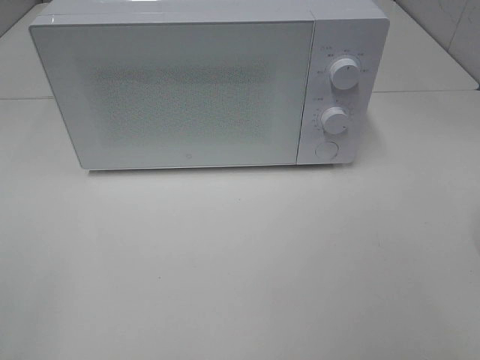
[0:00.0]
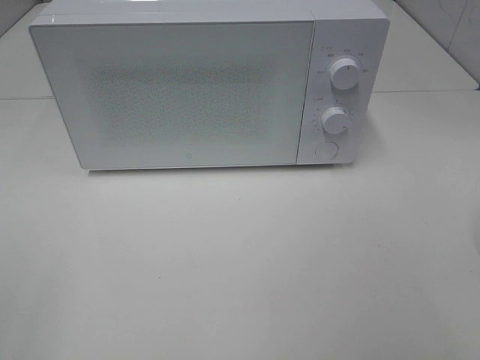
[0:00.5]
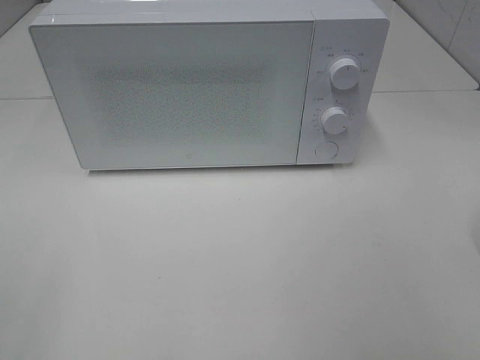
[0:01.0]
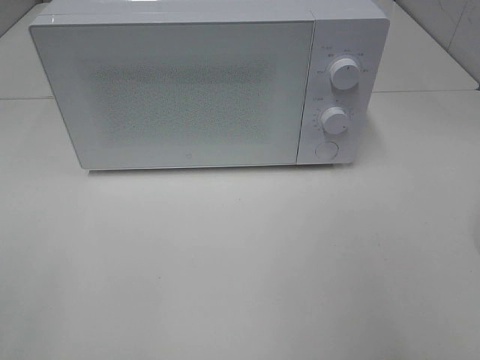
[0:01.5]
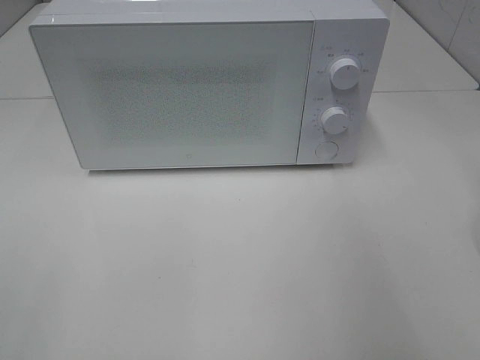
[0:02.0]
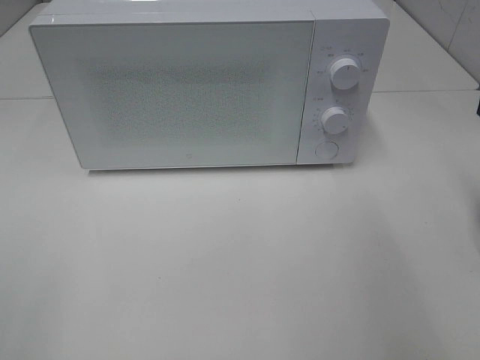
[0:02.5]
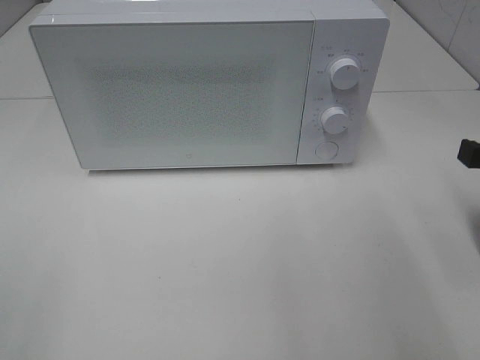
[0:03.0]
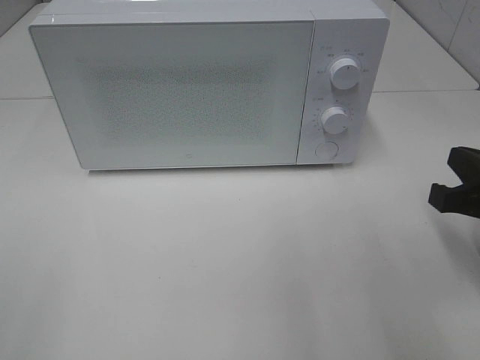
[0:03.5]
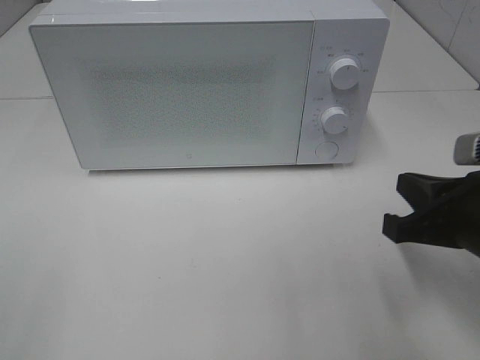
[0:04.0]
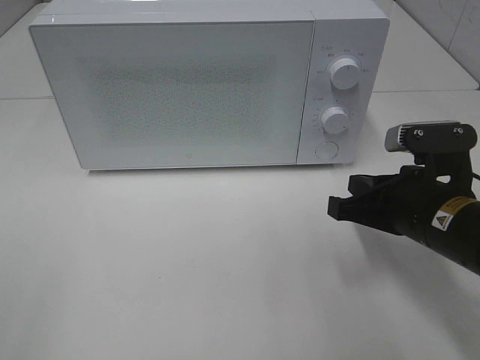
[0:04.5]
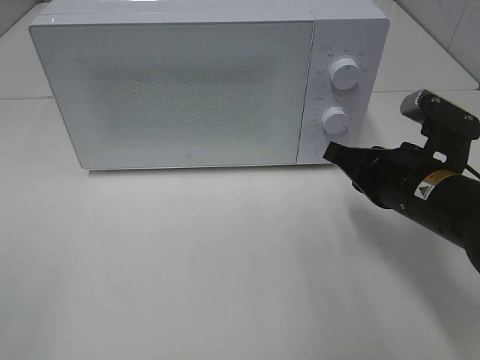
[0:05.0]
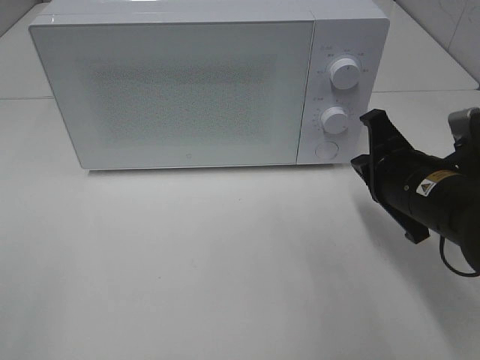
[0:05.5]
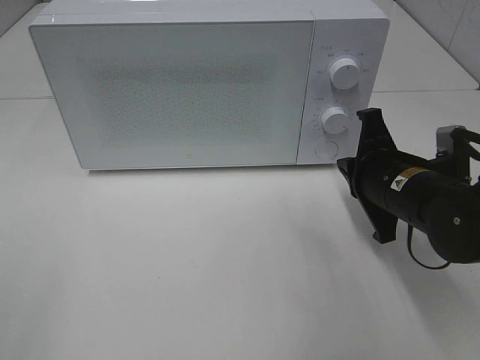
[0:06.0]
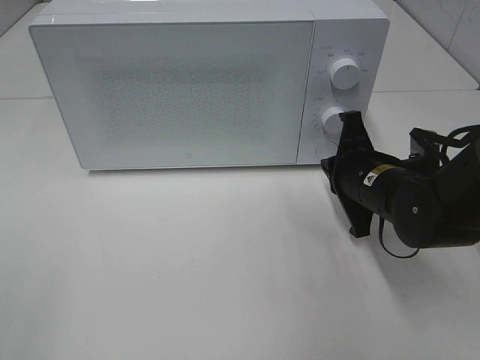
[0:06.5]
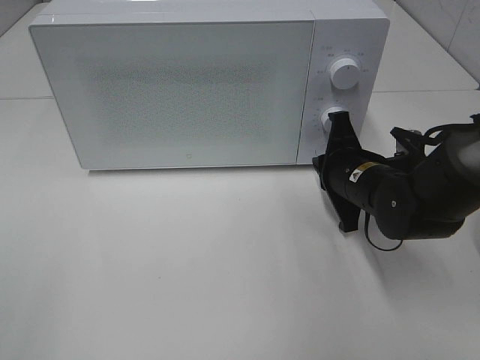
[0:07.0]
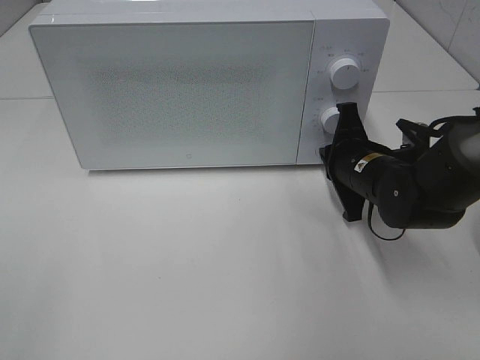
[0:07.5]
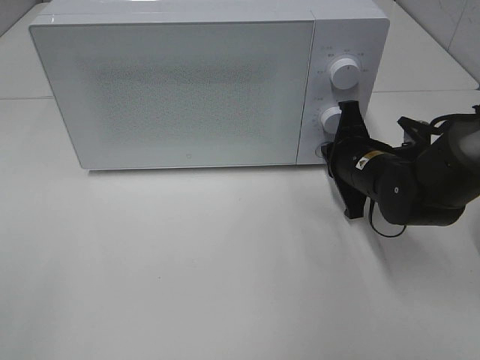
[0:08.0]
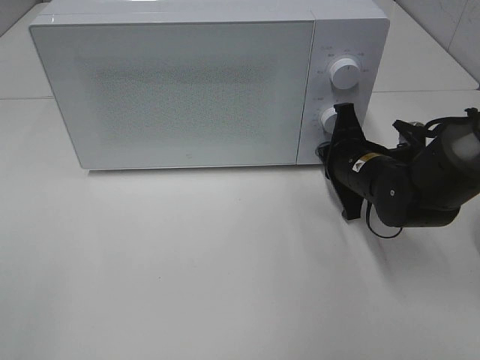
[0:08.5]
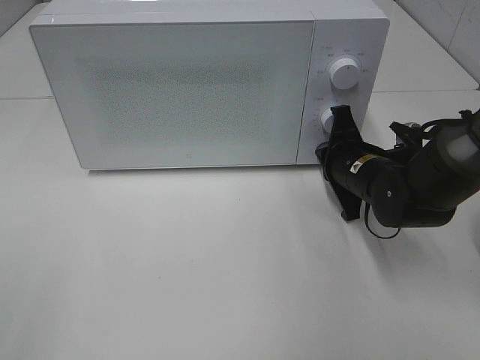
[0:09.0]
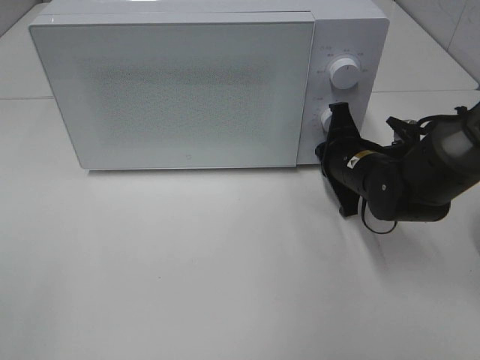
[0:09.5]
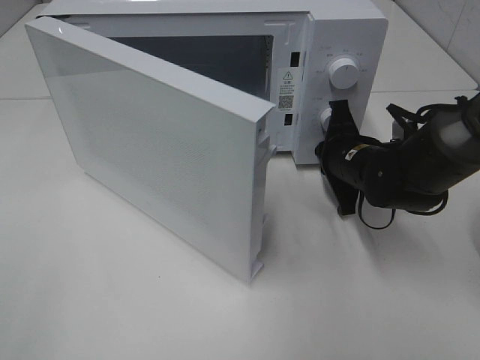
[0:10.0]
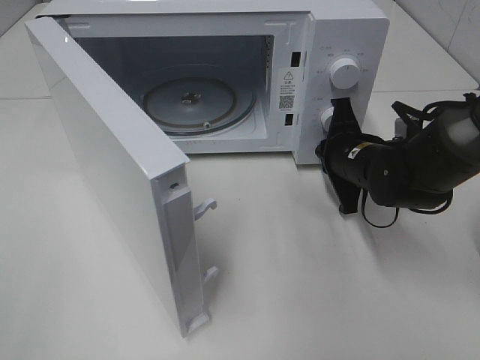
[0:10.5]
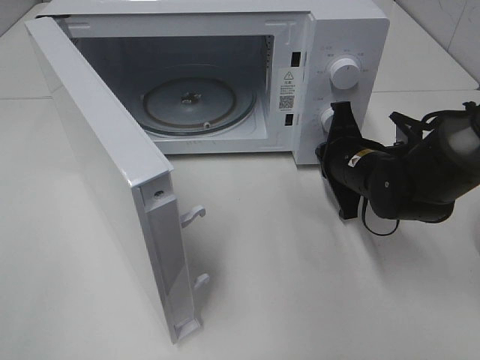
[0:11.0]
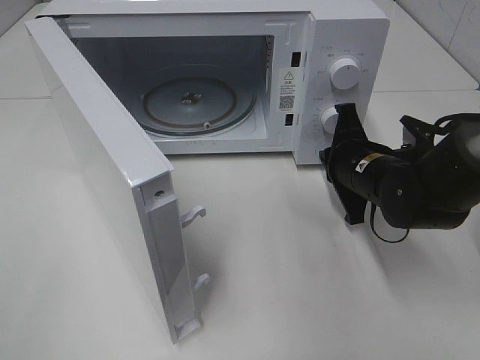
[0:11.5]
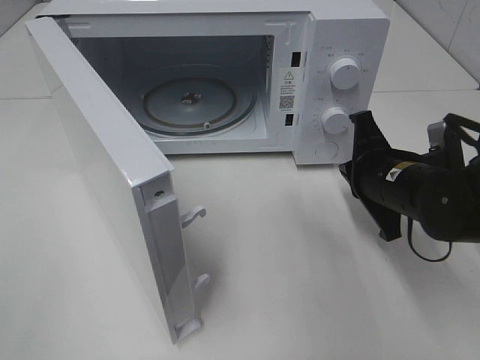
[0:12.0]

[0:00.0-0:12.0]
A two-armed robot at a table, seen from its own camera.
Task of the whole recording: Heat the burger.
Step, 0:00.0 to 0:11.0: Right hand: press the switch.
0:02.0 to 0:04.0: The right gripper goes some 15 cm downward and to the left.
0:04.0 to 0:06.0: The right gripper moves forward, about 10 cm.
0:06.0 to 0:08.0: The right gripper goes approximately 5 cm forward.
0:10.0 to 0:12.0: The right gripper shifts about 5 cm backward.

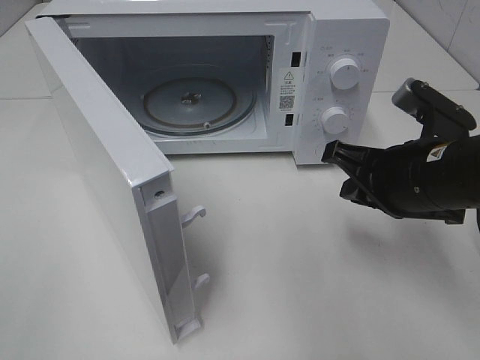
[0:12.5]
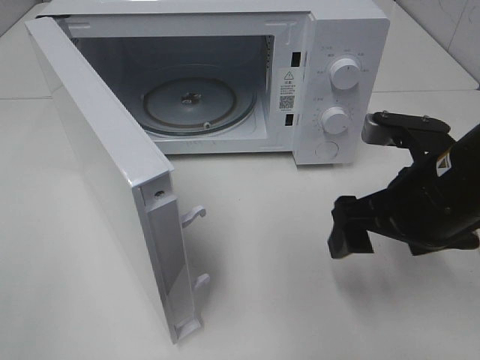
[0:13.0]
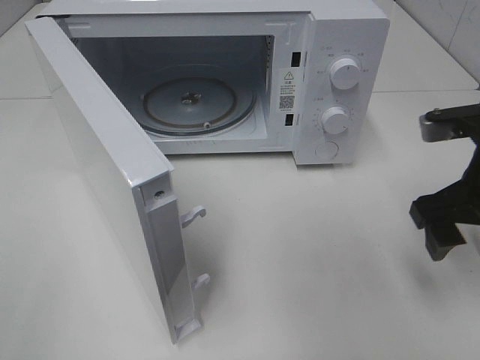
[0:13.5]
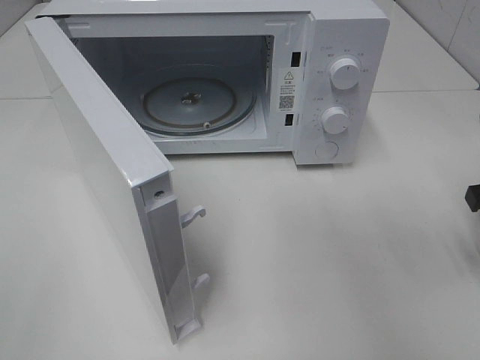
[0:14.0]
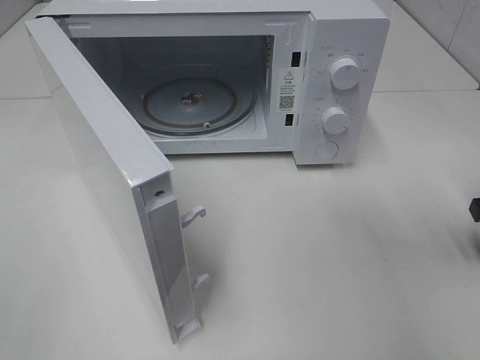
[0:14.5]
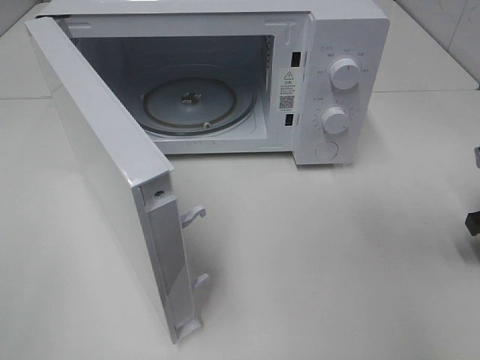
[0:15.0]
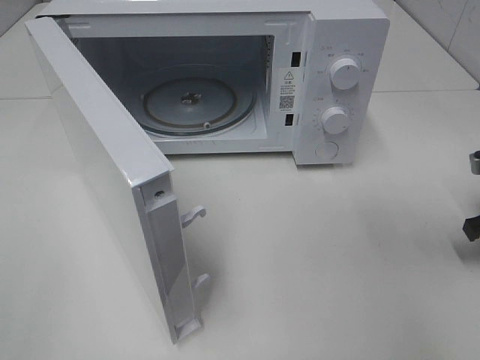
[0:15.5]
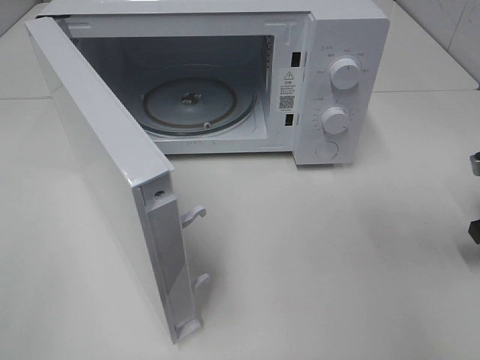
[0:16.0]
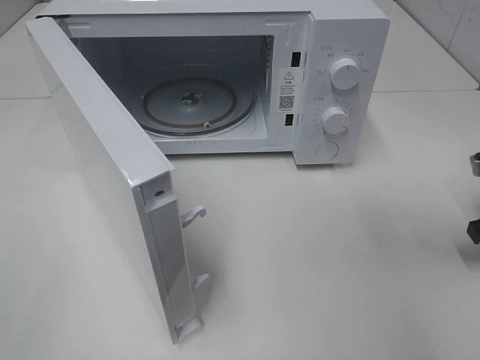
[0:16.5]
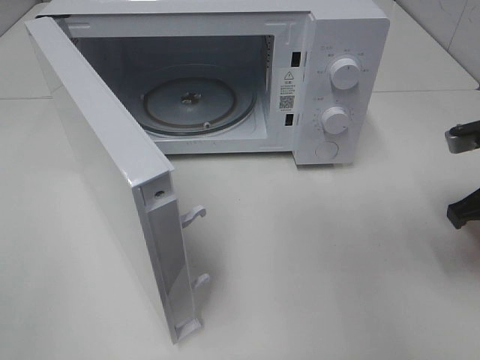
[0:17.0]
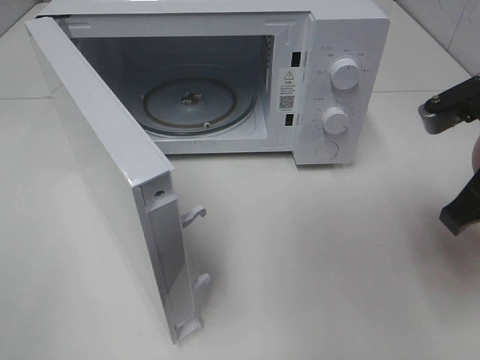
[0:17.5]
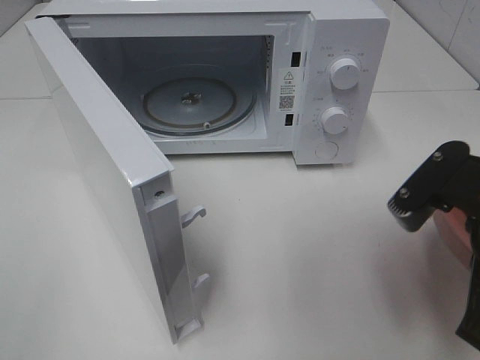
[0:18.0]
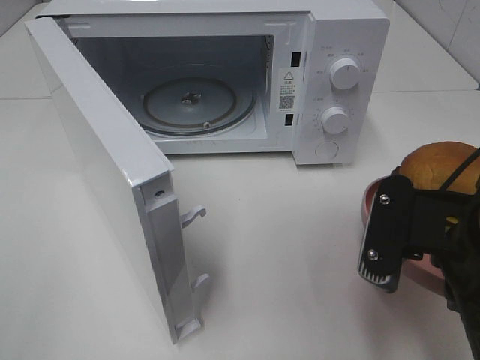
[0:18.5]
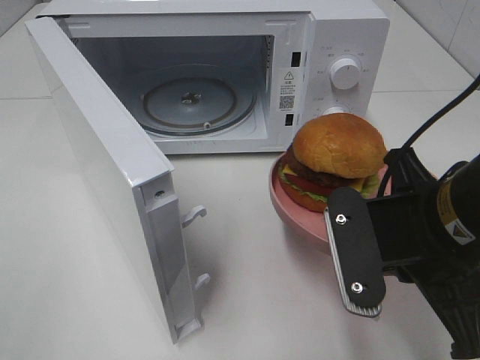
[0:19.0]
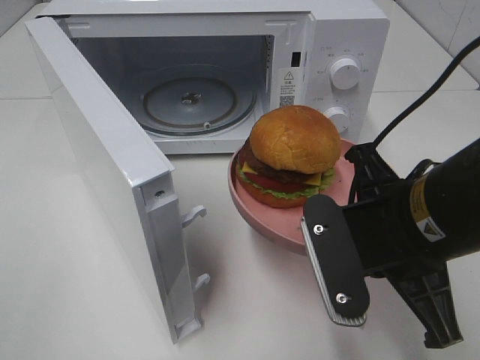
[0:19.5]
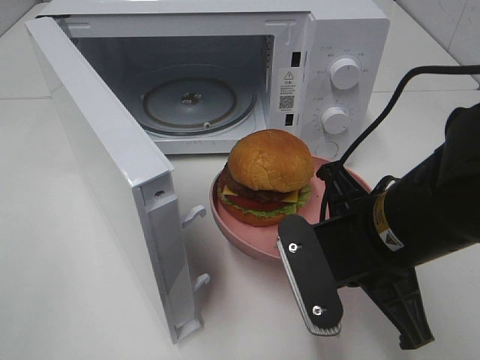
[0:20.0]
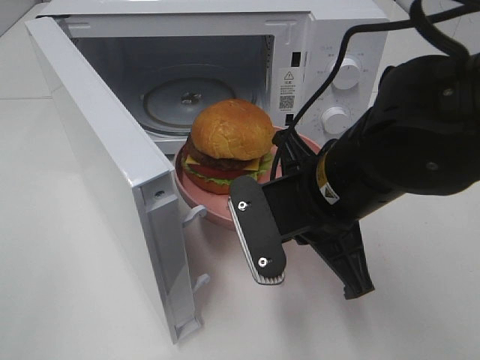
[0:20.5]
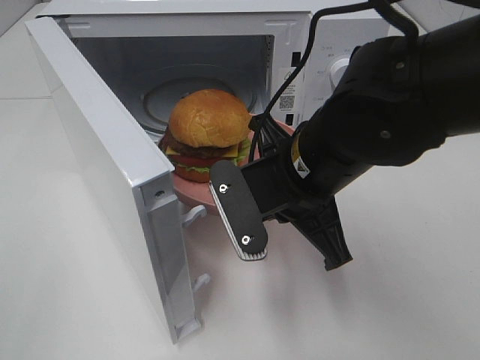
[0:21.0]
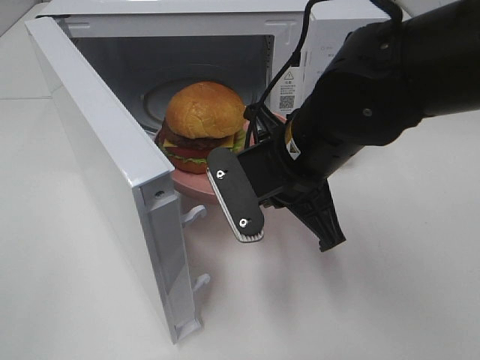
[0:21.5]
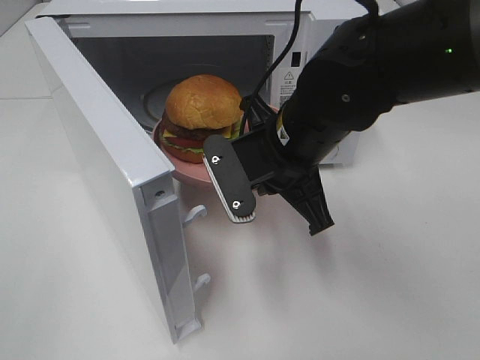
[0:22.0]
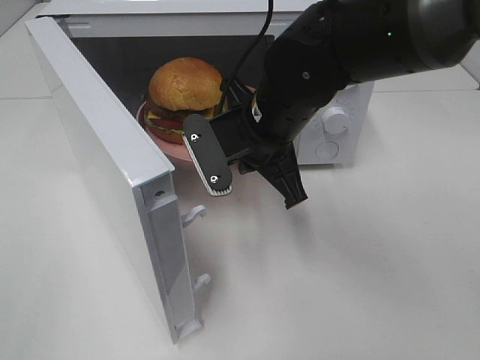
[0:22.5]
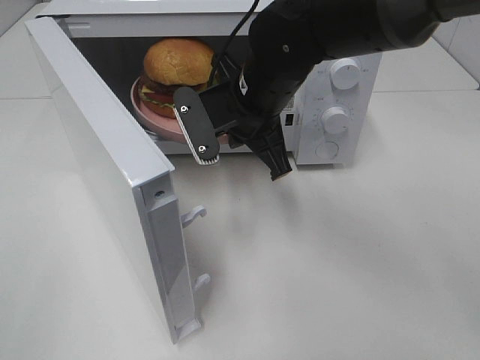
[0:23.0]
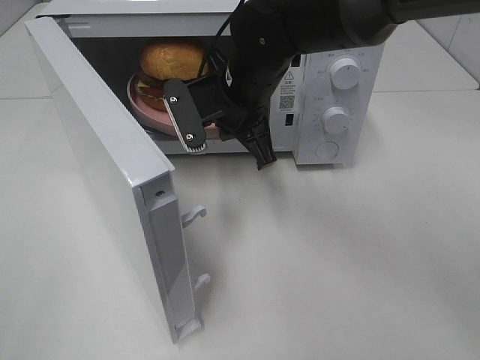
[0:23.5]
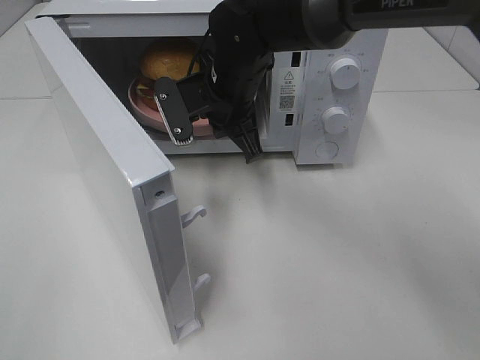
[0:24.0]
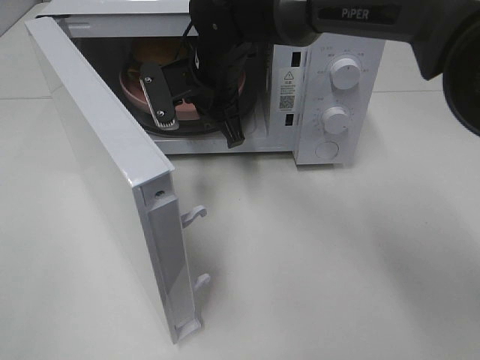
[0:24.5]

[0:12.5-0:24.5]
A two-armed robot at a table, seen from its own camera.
Task of the whole recording: Heat the burger.
Step, 0:12.5 to 0:16.5: Right hand: grab the plate with the hamburger.
0:12.5 to 0:14.5: The right gripper travels to the right by roughly 15 cm, and opens its fingers.
0:16.5 to 0:18.5: The right gripper heads to the left, backward and upward, covering about 25 cm.
0:18.5 to 0:20.5: The right gripper travels to the left and forward by roughly 10 cm.
0:20.5 to 0:22.5: The right gripper is displaced forward by roughly 10 cm.
0:22.5 to 0:24.5: The right gripper goes some 10 cm forward and to the left.

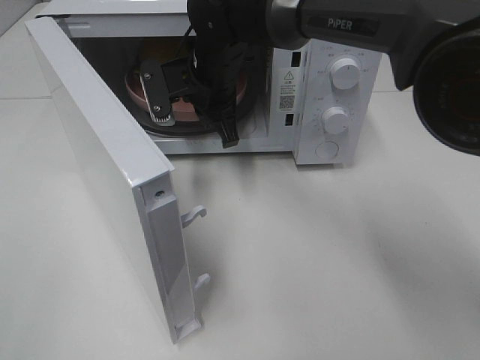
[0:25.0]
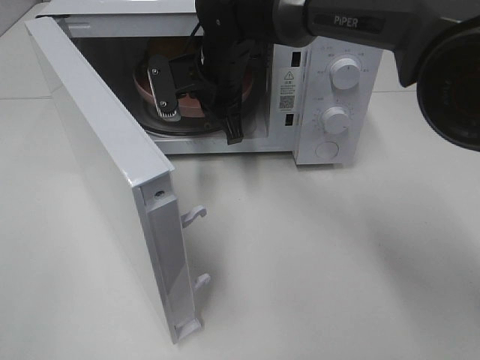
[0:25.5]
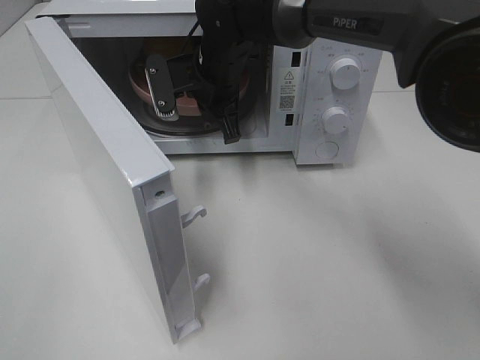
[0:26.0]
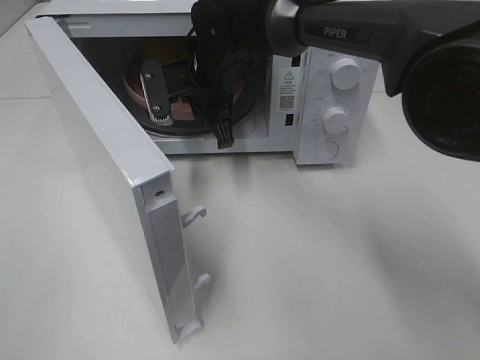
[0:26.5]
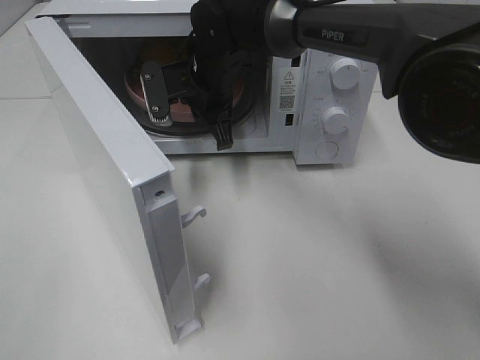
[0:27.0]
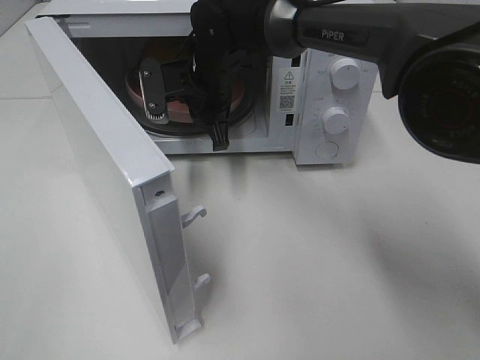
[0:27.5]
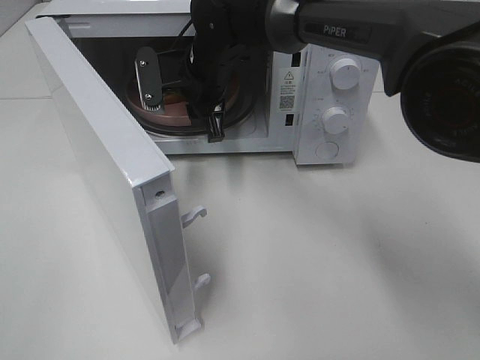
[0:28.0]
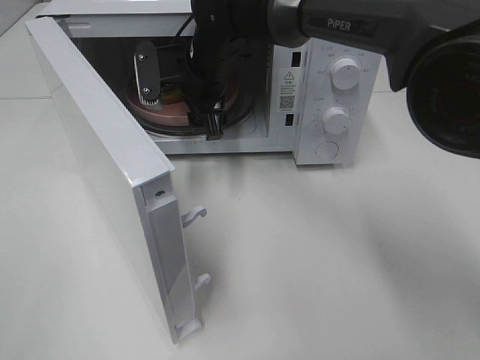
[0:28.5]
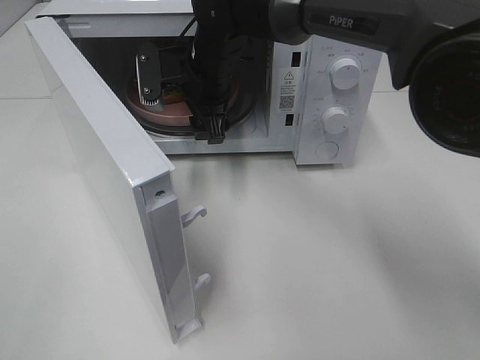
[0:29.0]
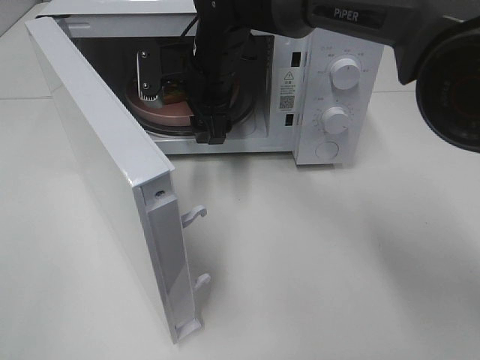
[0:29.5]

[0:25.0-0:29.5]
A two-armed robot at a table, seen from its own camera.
Task of the whole recording: Heat the burger.
Step, 0:25.0 to 0:27.5: Right hand: place the plate in the microwave.
0:25.0 to 0:27.0: The grippers stay close to where they were, moving slightly.
0:27.0 to 0:29.5: The right gripper opens up.
